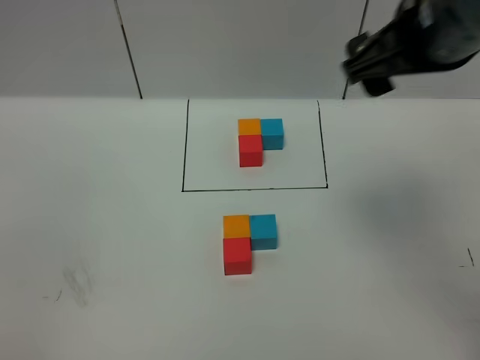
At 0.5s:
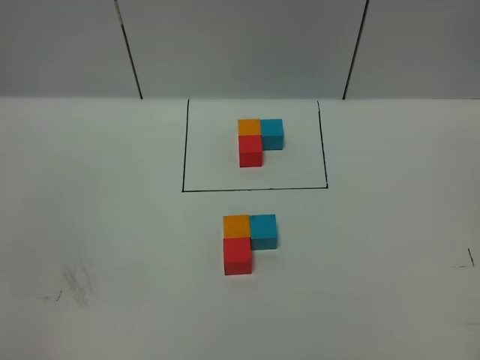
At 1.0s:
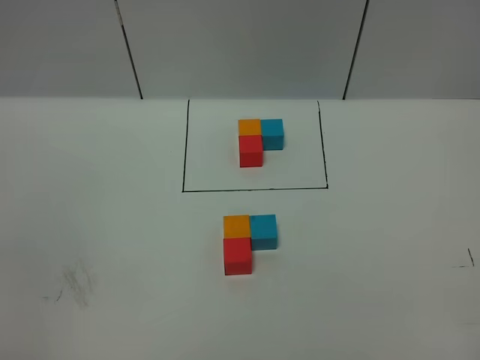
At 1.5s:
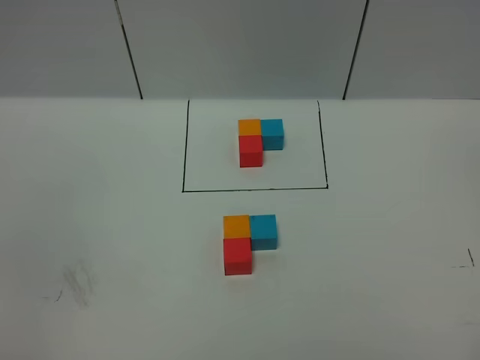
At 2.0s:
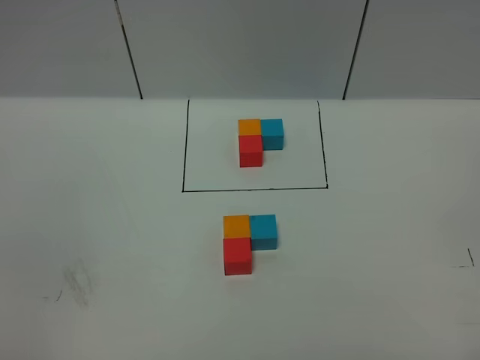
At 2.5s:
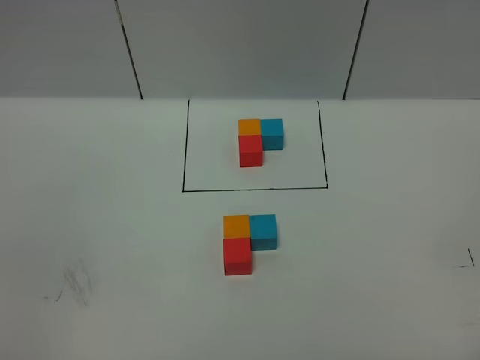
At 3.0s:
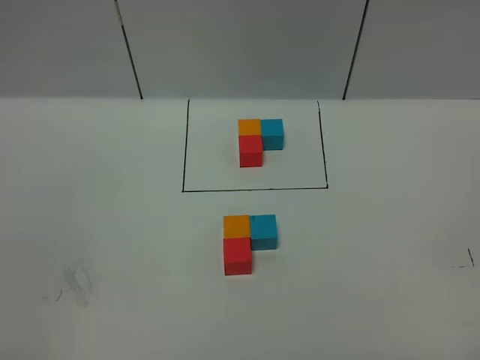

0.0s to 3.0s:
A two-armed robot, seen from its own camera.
Task of the whole recording: According to the building block template in front, assemble the scattered blocks together.
0.0s to 1.5s: The right gripper is displaced backward and to the right by some 35 cm.
